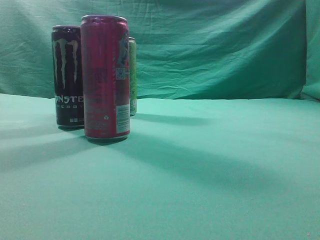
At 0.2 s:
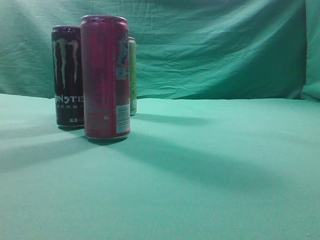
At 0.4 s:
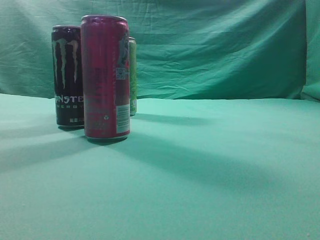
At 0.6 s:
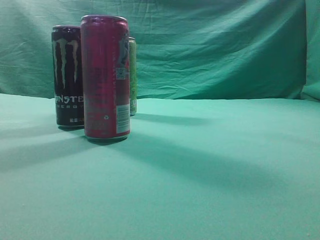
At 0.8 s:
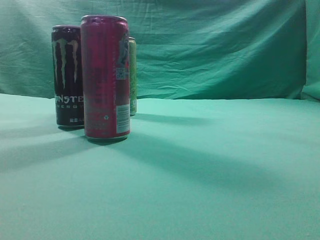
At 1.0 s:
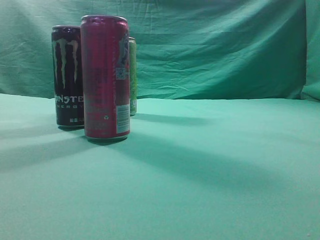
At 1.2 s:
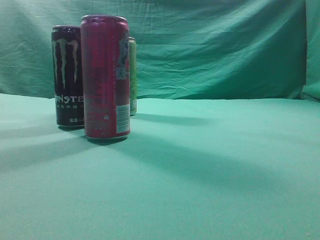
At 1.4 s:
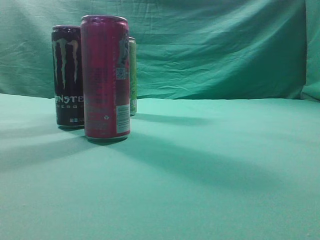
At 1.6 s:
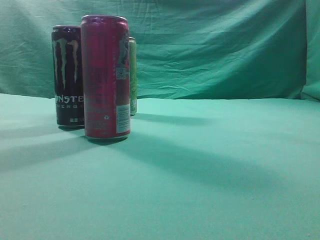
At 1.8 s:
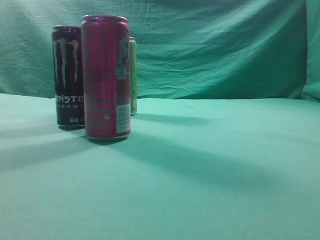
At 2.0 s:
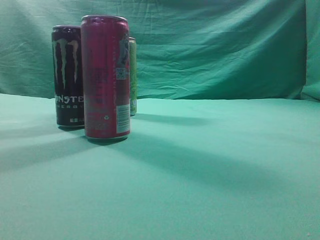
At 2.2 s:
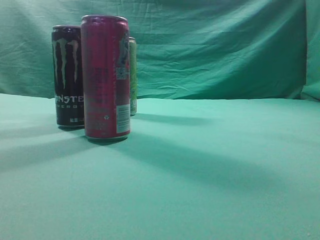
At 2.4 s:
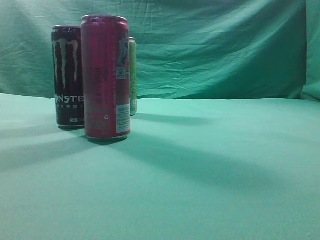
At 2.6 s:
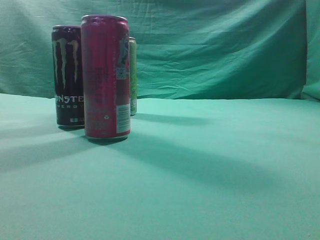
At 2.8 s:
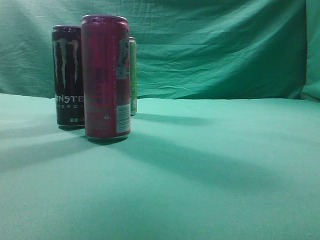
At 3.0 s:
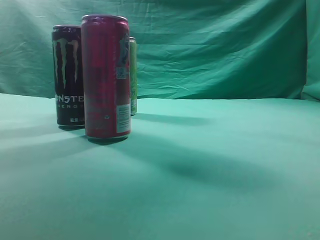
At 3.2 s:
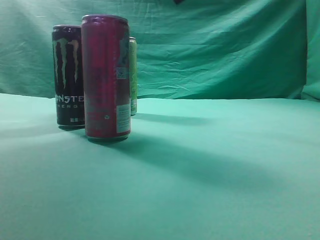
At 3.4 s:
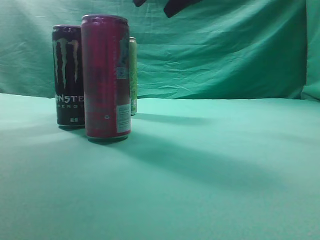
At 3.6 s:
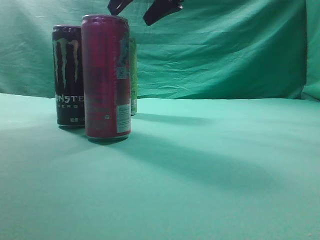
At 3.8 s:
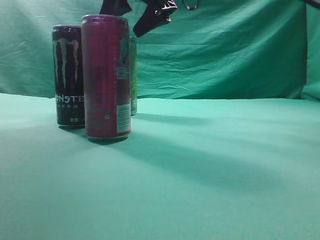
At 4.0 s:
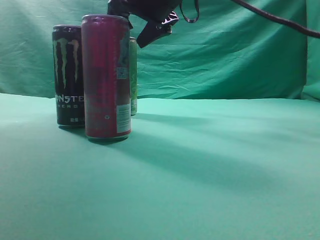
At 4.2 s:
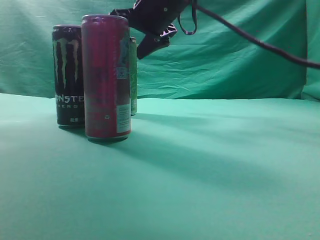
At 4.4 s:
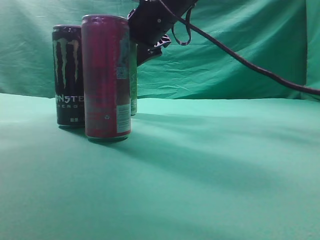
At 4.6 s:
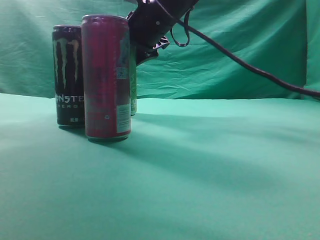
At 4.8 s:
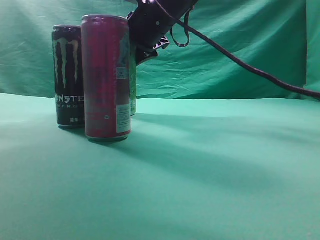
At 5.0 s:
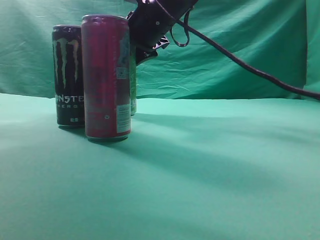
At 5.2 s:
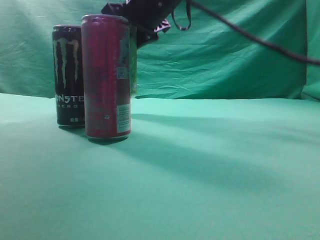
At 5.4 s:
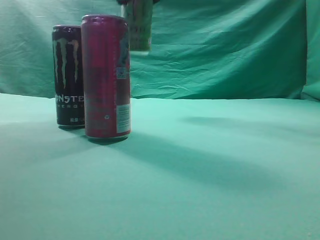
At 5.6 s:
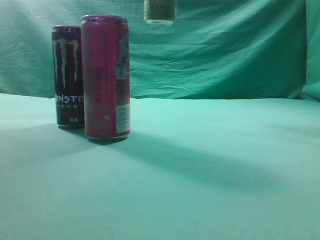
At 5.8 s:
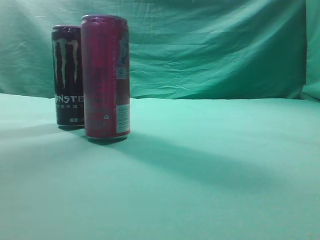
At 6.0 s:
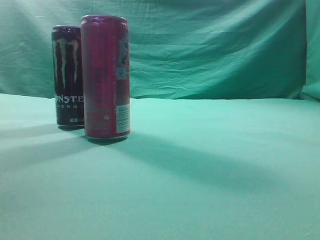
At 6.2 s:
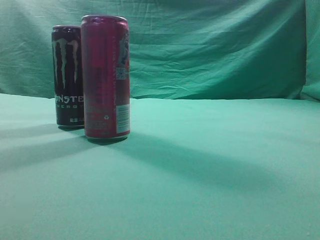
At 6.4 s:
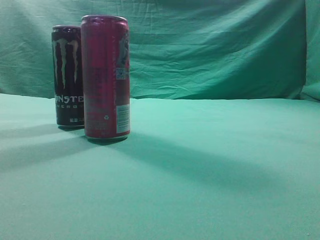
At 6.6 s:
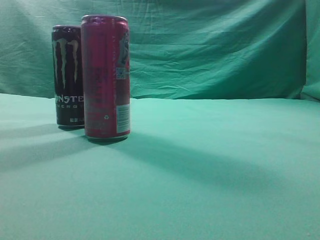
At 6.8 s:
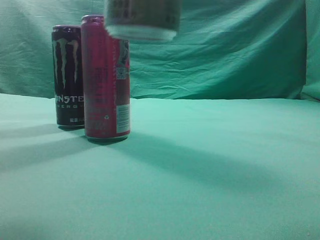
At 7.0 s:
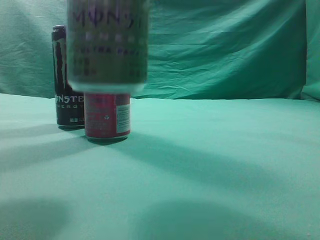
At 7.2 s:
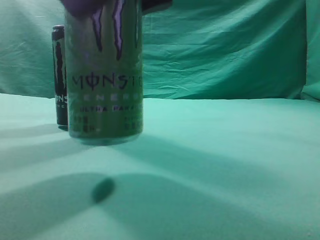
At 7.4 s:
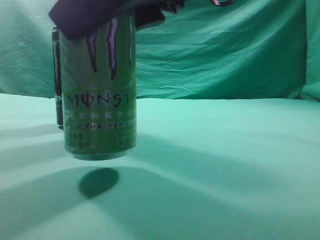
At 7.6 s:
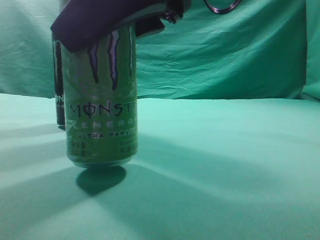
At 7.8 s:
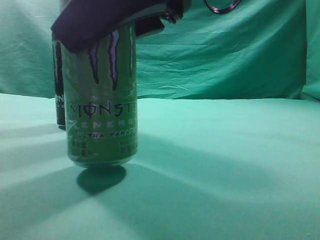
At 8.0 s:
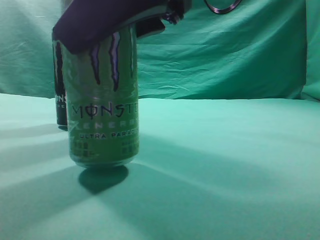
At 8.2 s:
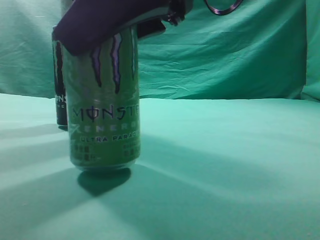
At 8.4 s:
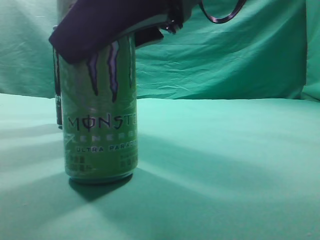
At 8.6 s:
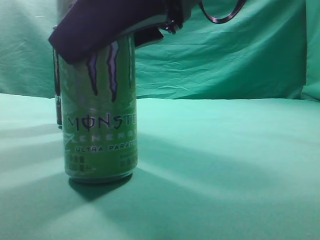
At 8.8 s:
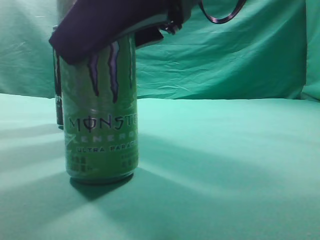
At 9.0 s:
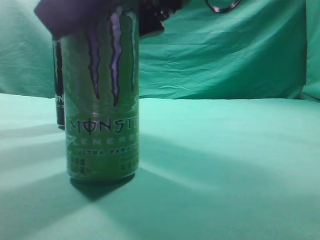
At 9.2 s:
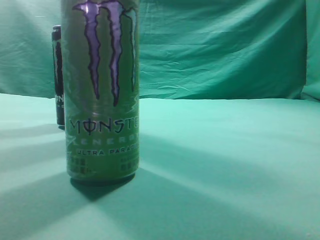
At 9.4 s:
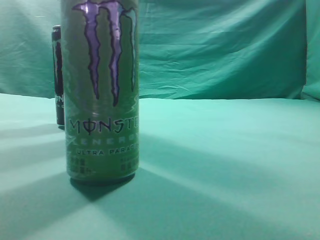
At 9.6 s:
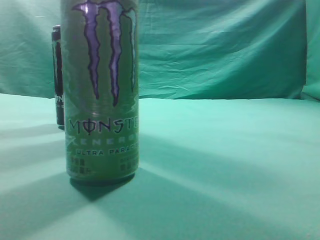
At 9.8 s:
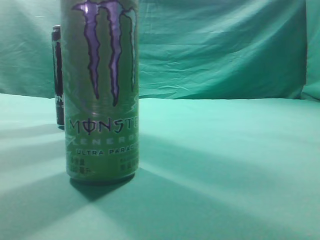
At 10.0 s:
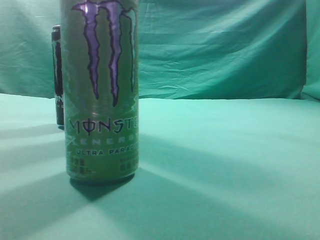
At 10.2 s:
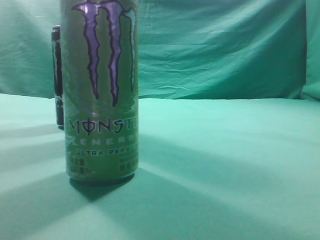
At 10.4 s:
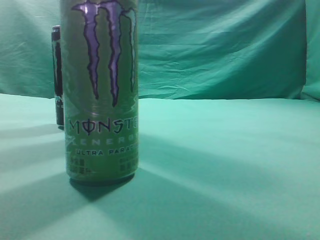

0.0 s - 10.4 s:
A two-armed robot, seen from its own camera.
Task of the whole recording: move one drink among three beverages.
Step, 0.0 s - 5.2 s: Grasp the beverage bottle placed at the back of the desk.
Step, 5.4 s - 8.4 s: Place the beverage bottle to the front of the table.
1.4 s - 3.0 s: The right gripper moves forward, to the left and upward, roughly 35 cm.
3.0 s - 4.4 s: The right gripper travels to the left, downward and forward by roughly 20 cm, and opens.
4.4 s - 6.0 s: The right gripper travels upward, to the right and backward by roughly 30 cm.
6.0 s - 7.4 s: The right gripper travels downward and backward by some 25 cm.
7.4 s - 9.0 s: Both grippers stay about where they are.
9.0 s - 10.4 s: The right gripper is displaced to the right, upward and backward by some 25 cm, and closes its fingers.
